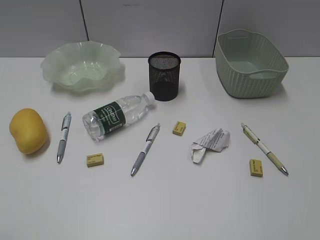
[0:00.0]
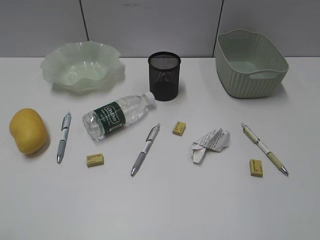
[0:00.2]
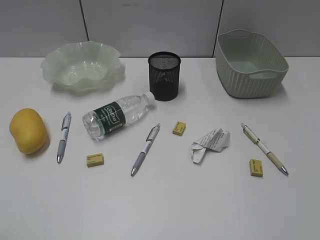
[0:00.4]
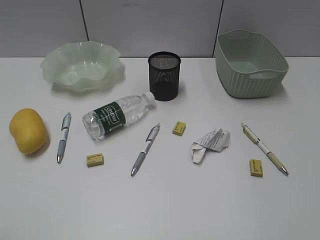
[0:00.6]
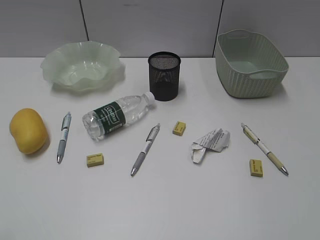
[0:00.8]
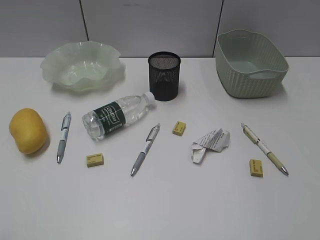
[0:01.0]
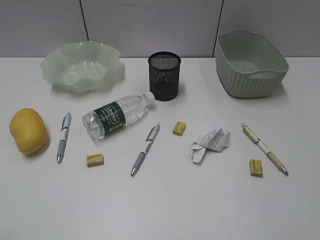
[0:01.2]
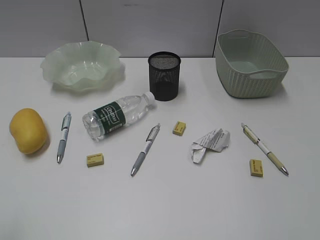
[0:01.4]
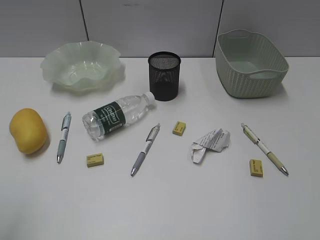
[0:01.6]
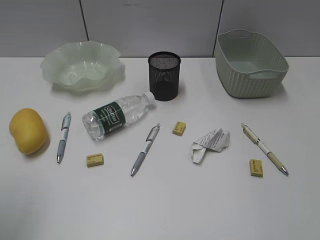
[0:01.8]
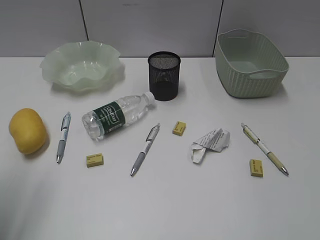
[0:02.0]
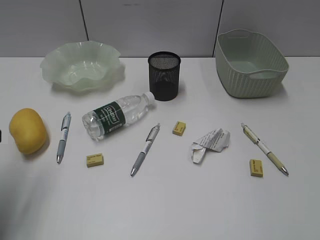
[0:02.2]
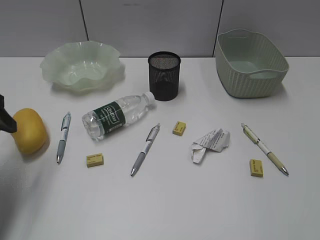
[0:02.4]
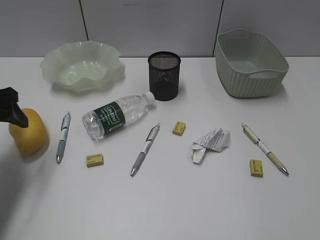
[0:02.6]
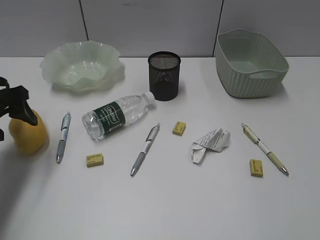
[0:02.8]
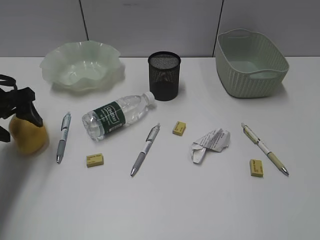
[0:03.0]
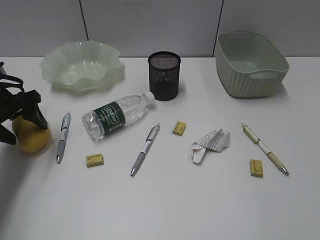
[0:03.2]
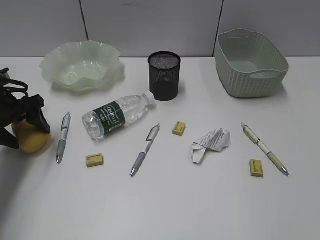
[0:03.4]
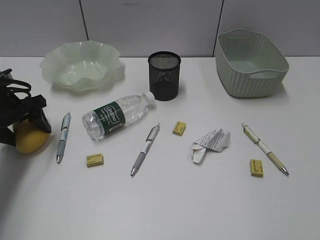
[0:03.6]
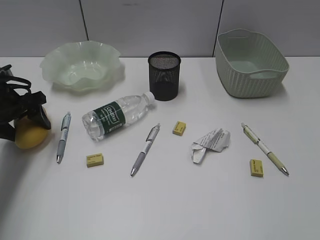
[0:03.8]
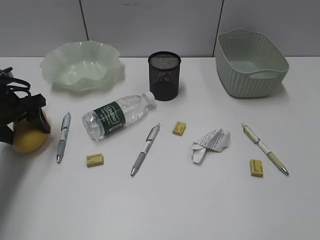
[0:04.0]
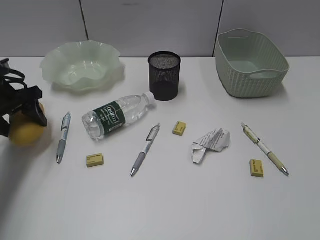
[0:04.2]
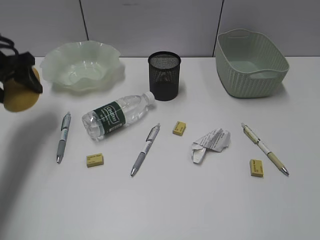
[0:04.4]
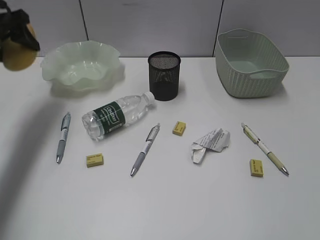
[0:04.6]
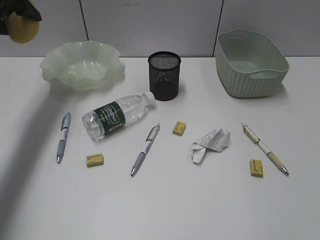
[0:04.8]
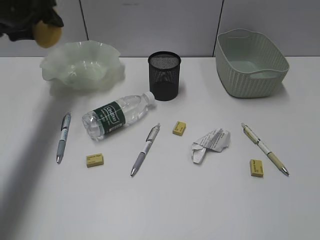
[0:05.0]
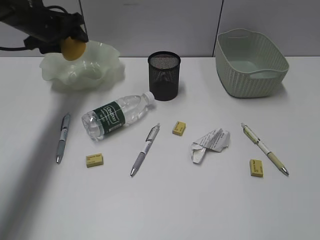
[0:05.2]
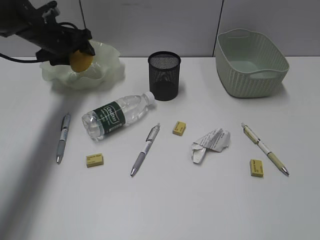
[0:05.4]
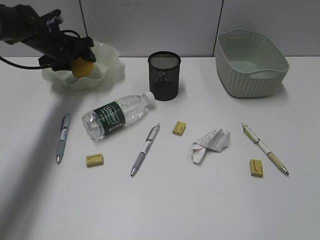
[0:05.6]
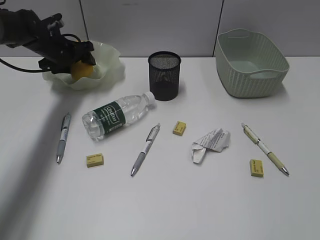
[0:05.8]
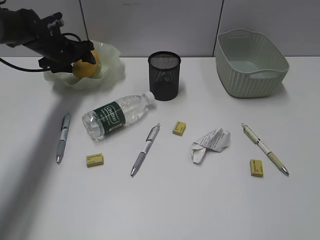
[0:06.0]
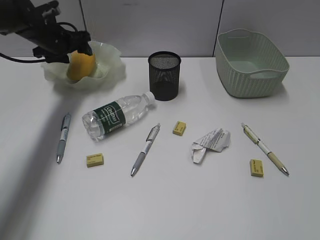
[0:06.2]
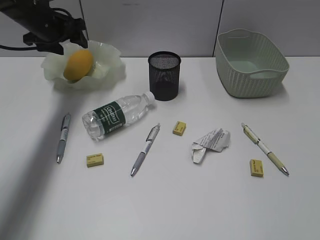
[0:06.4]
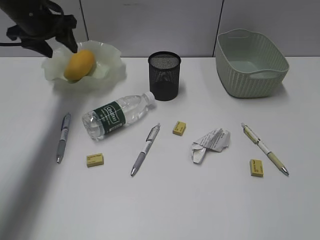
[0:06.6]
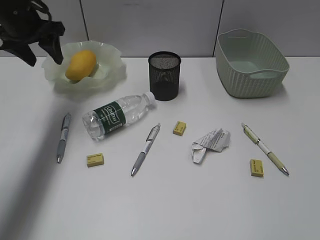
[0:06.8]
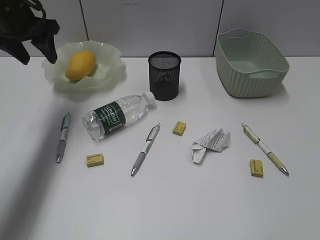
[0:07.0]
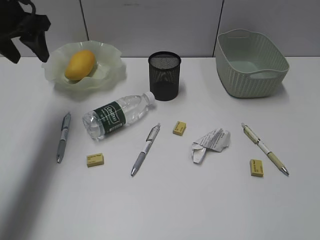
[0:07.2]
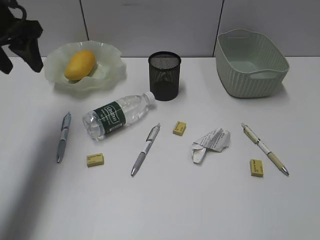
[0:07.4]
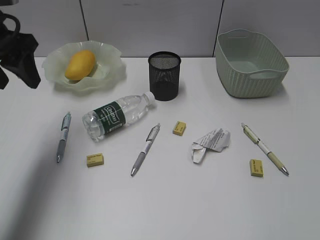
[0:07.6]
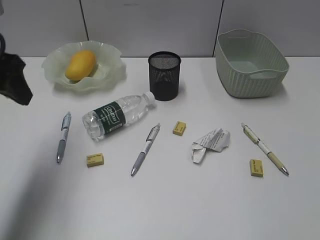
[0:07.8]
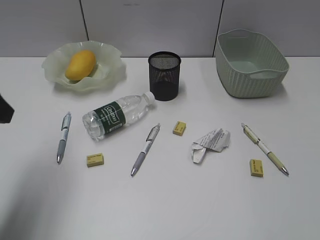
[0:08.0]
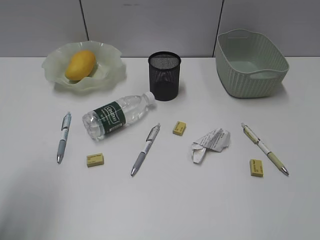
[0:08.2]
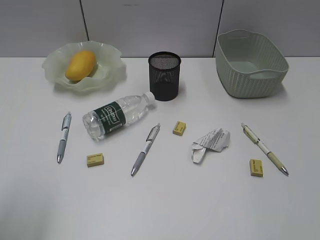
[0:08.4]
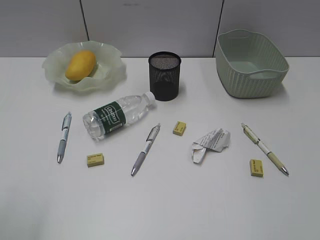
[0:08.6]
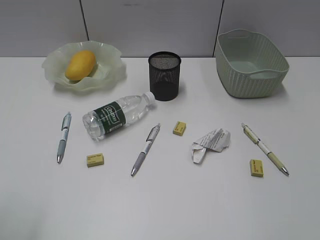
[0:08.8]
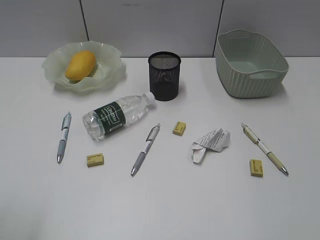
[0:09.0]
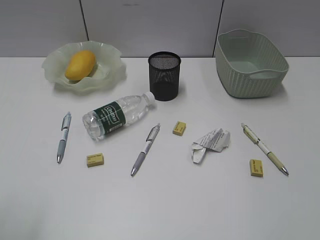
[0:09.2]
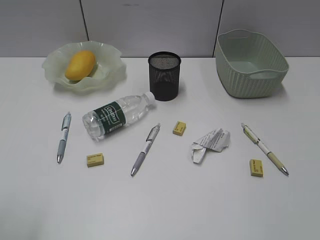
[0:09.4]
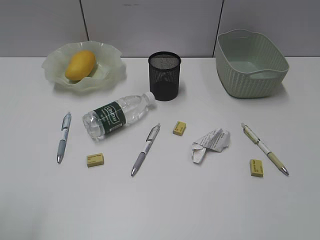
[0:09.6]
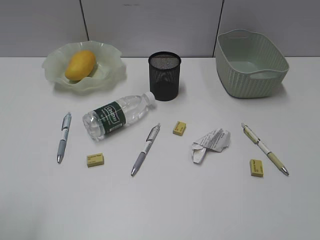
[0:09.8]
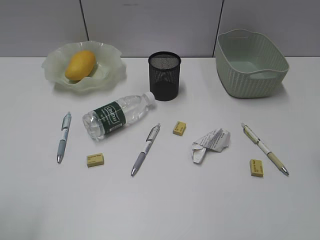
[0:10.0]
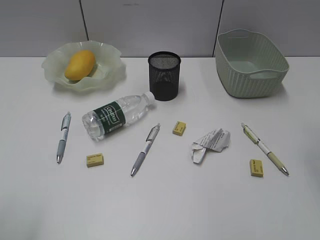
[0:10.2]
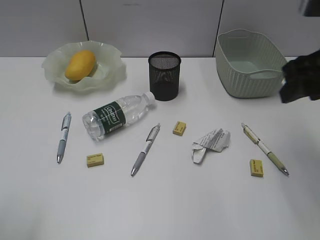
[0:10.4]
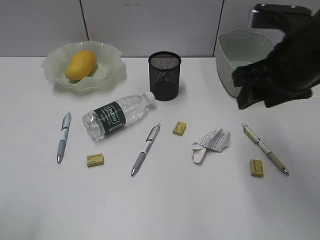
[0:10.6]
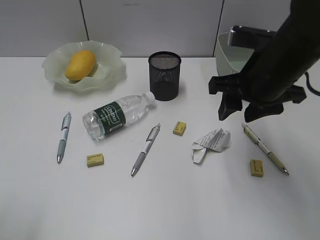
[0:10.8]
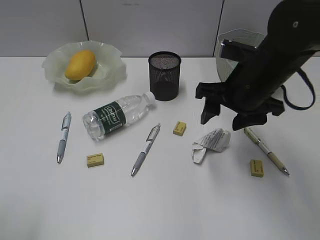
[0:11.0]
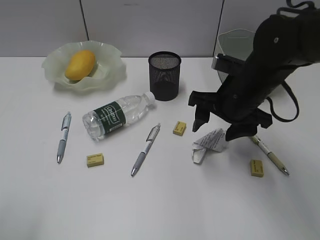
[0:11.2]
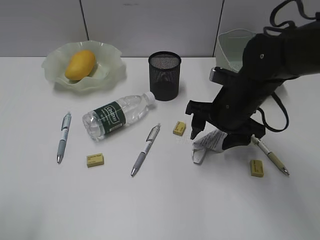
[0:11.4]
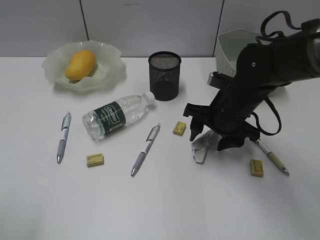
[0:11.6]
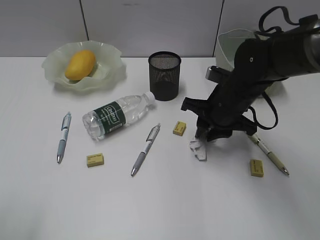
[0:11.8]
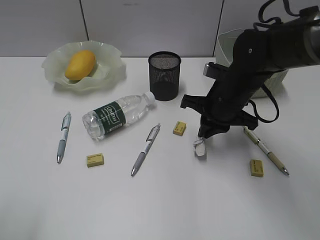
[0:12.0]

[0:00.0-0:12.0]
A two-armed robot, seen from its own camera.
Step, 2.2 to 3.6 s: Grasp the mango with left gripper.
Step, 3.8 to 6.2 s: Place the mango in the plate with left gripper.
Step, 6.4 to 11.8 s: Grasp the waste paper with right gripper.
1.6 to 3.0 s: The left gripper goes roughly 30 cm forward and downward.
3.0 to 4.4 s: The left gripper ends up some 5 cm from where it was.
4.4 to 6.0 s: The left gripper travels forward, to the right and downward by roughly 20 cm.
6.0 to 7.6 s: The left gripper heads backward and upward, covering about 25 cm.
7.6 to 9.0 s: The left gripper moves backward, approximately 25 cm.
9.0 to 10.4 s: The right gripper heads forward, covering roughly 25 cm.
10.4 to 12.0 s: The right gripper heads downward, to the left and forward, covering some 20 cm, and closes its fingers.

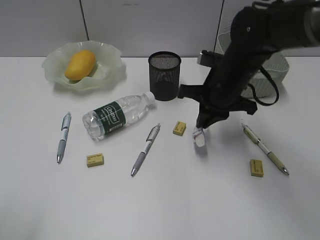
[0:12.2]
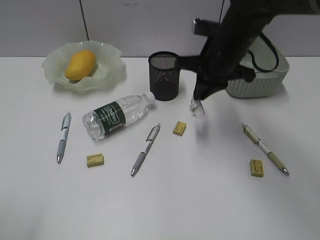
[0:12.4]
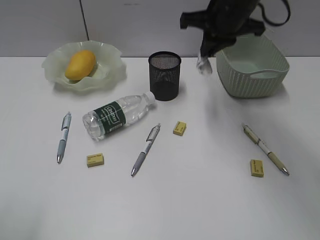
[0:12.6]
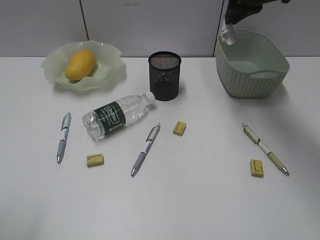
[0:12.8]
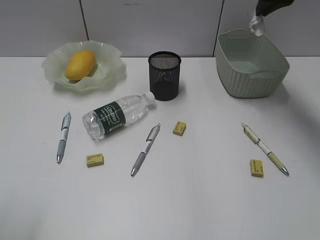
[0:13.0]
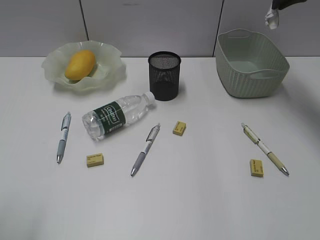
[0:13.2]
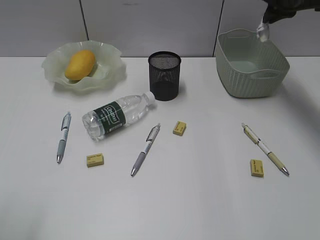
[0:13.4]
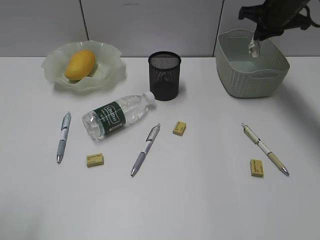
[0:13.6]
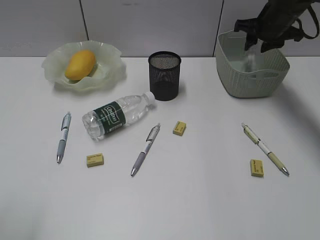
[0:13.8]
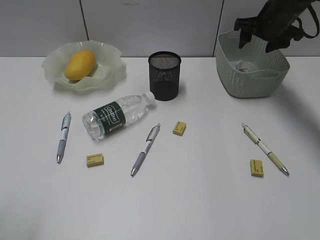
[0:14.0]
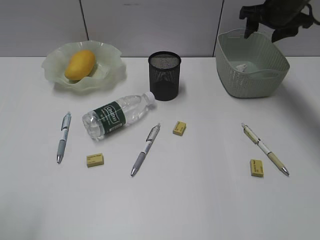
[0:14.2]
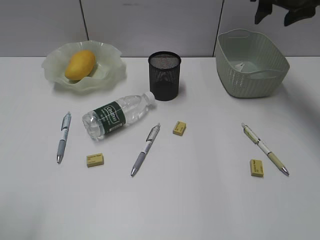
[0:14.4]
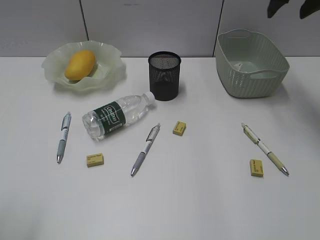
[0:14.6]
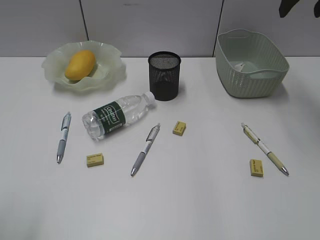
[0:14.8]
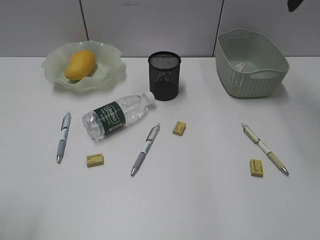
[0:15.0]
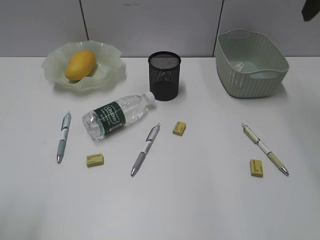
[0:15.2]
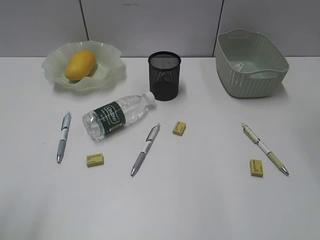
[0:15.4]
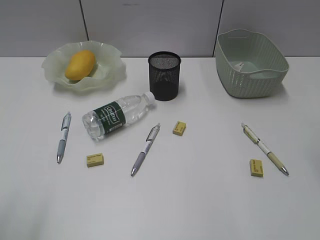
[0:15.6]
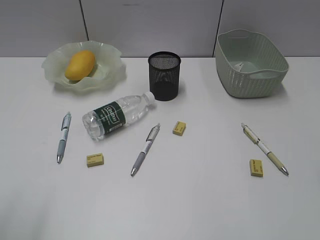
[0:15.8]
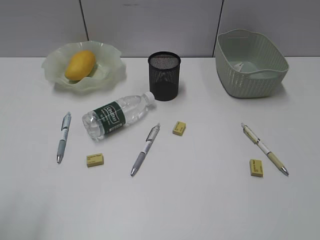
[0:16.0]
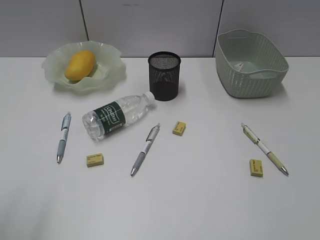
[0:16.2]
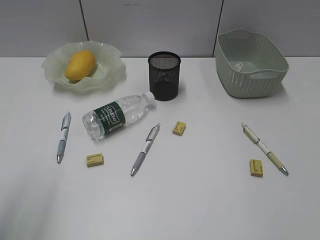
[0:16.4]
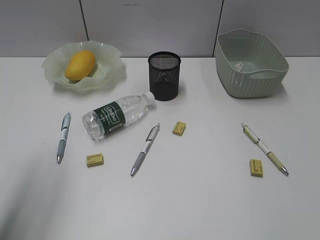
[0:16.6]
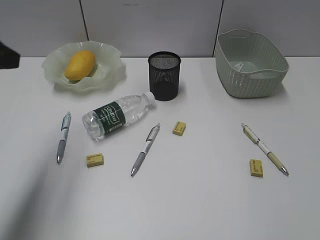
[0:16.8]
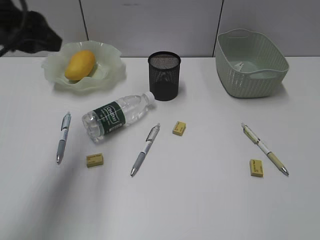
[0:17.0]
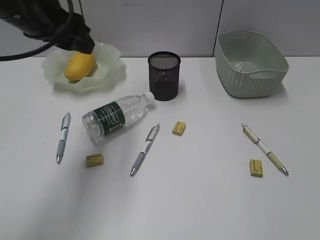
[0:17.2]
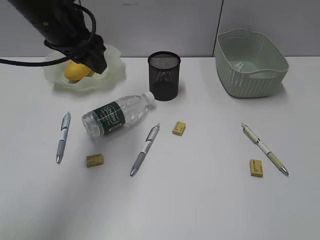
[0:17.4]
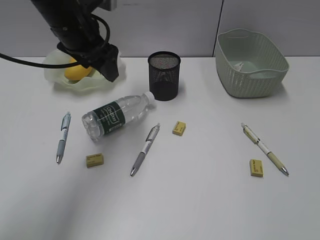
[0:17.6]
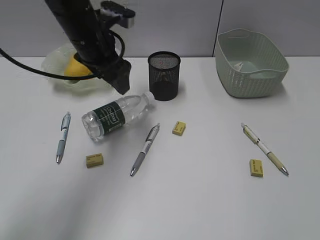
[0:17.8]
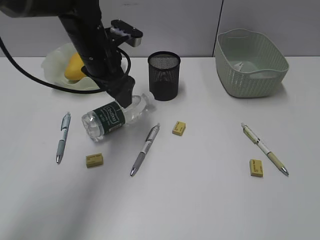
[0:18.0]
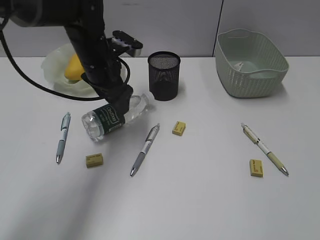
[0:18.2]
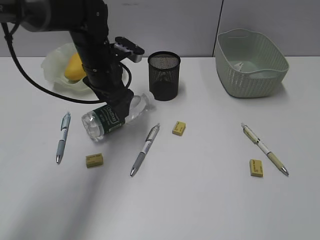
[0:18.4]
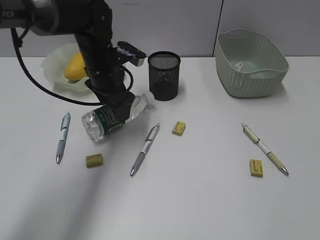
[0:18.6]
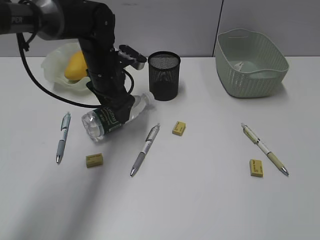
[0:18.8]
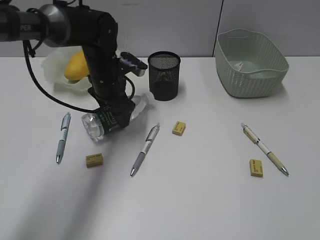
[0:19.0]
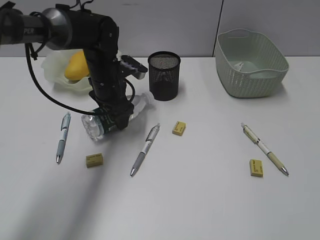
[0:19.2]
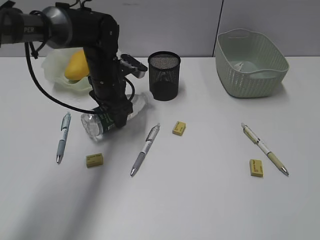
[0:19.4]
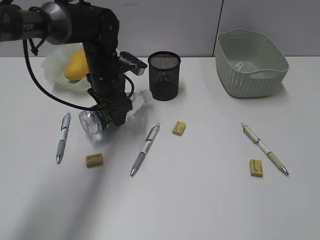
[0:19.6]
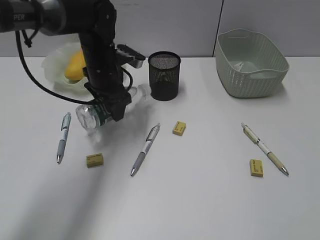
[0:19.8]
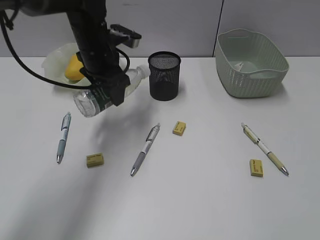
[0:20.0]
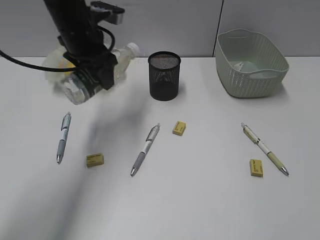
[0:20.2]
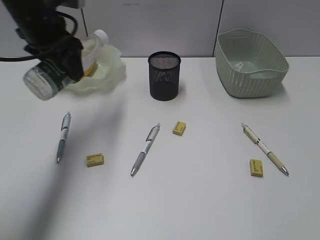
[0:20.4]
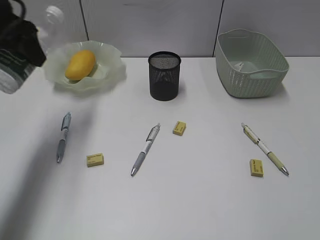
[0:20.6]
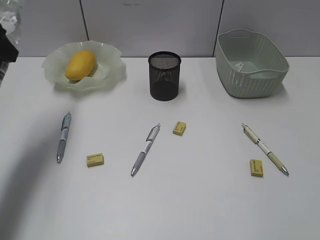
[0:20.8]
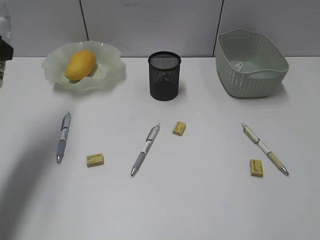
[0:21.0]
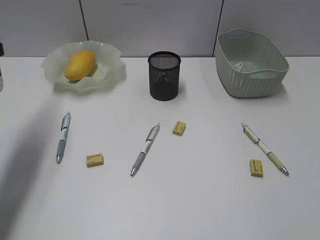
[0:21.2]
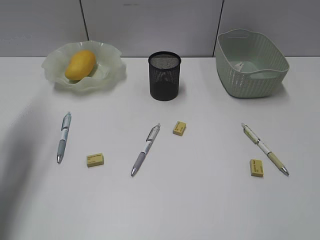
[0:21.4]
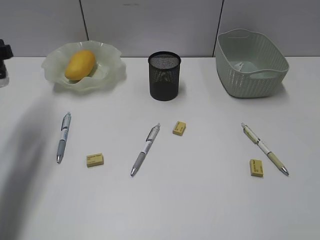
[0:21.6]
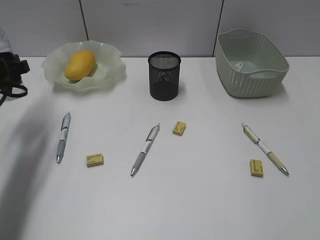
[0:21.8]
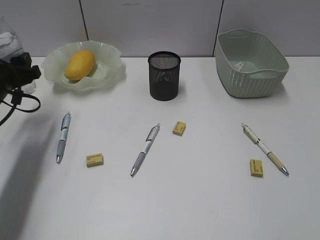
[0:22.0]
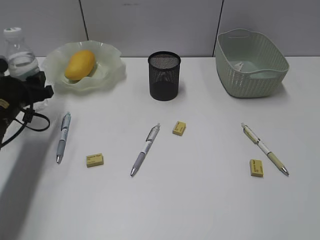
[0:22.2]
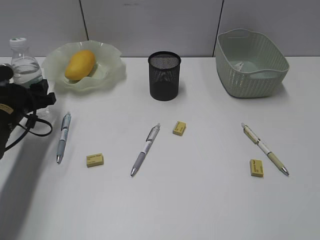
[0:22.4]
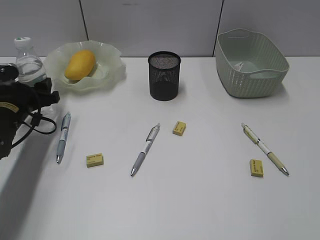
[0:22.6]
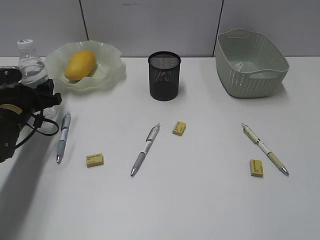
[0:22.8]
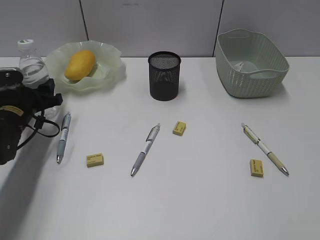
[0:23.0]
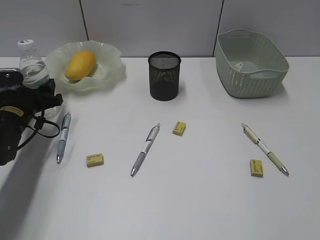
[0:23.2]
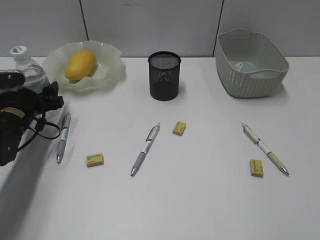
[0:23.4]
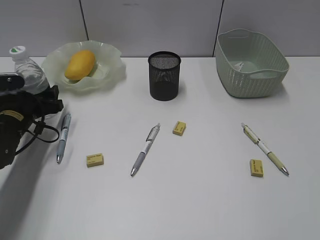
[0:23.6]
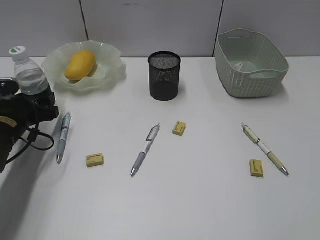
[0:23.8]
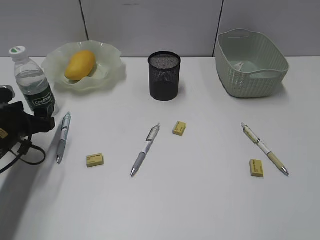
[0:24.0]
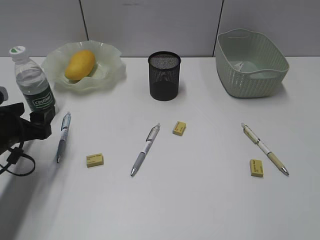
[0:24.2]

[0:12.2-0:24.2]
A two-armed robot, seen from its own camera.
Step, 12.2 to 13.8 s: Place the waste paper in the basket with right gripper.
Step, 14.0 to 19.4 s: Grasp the bottle with left gripper.
Step, 19.6 to 23.8 s: Stand the bottle with left gripper.
12.2 to 13.8 s: The right gripper is displaced forward and to the right by roughly 20 cm, moves roughly 15 cm upward and comes back, and opens up.
13.8 to 15.2 s: The right gripper heads upward and backward, covering about 25 cm, and opens.
15.2 to 16.6 s: The left gripper travels forward by roughly 10 cm.
16.6 to 18.2 s: The left gripper shifts roughly 30 cm forward, to the right and downward, and opens up.
18.2 to 19.8 s: The grippers move only a little.
19.8 to 21.2 s: The left gripper shifts some 25 cm to the left, backward and upward.
21.2 to 22.6 s: The left gripper shifts roughly 20 cm downward and forward.
22.6 to 24.2 s: The left gripper travels backward by approximately 10 cm.
